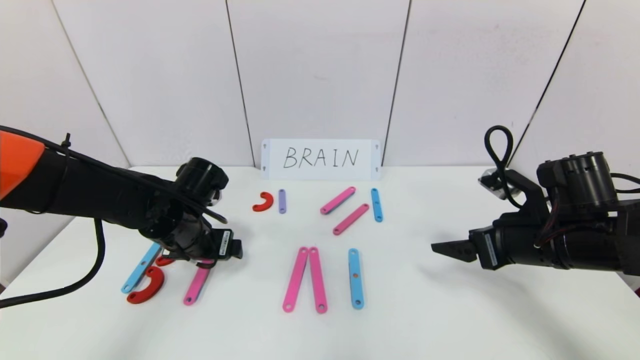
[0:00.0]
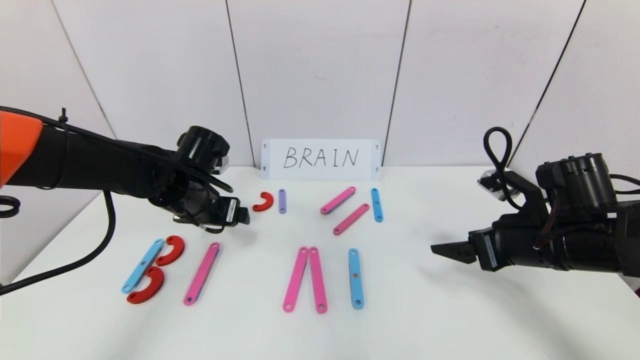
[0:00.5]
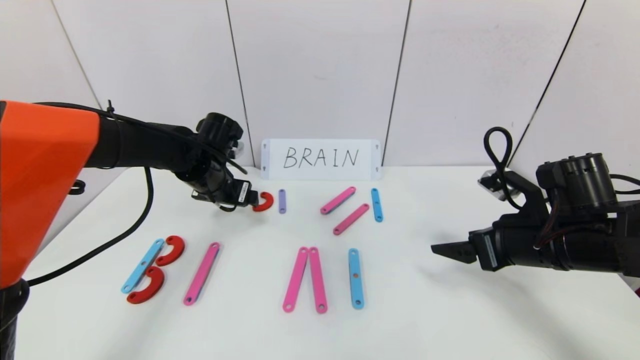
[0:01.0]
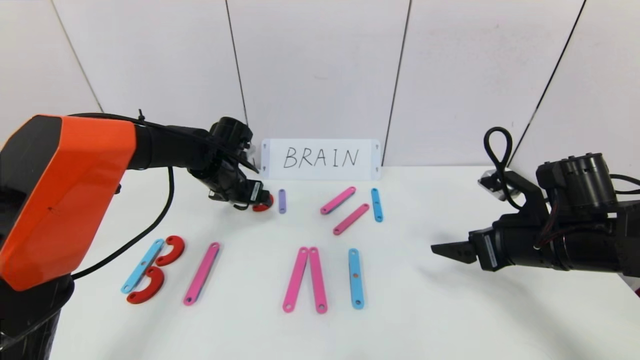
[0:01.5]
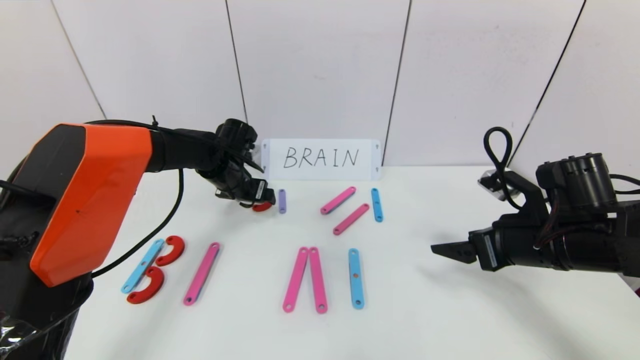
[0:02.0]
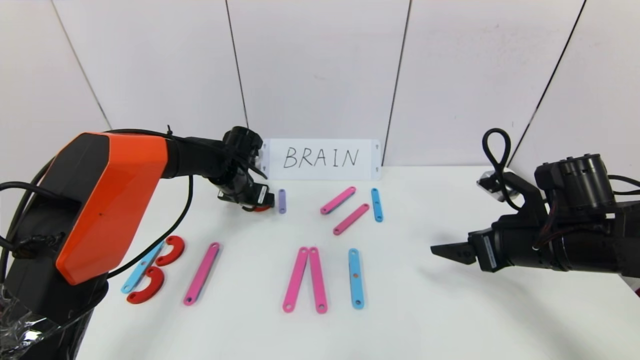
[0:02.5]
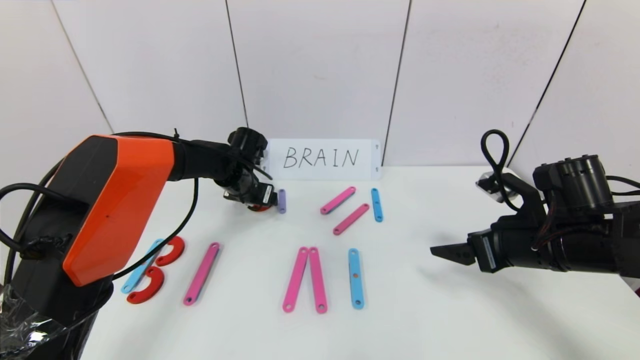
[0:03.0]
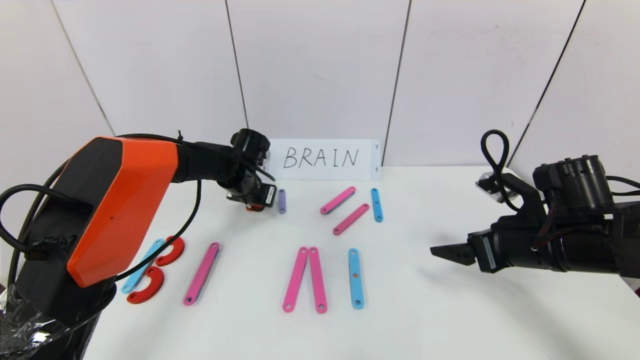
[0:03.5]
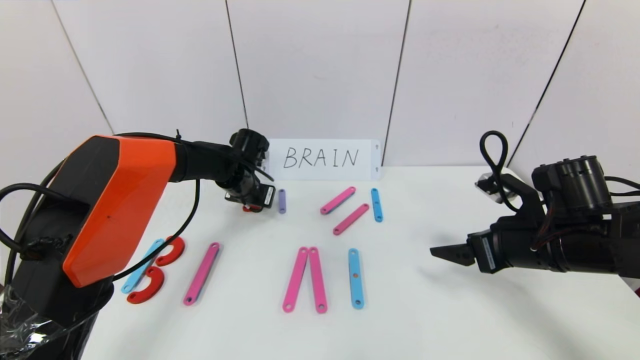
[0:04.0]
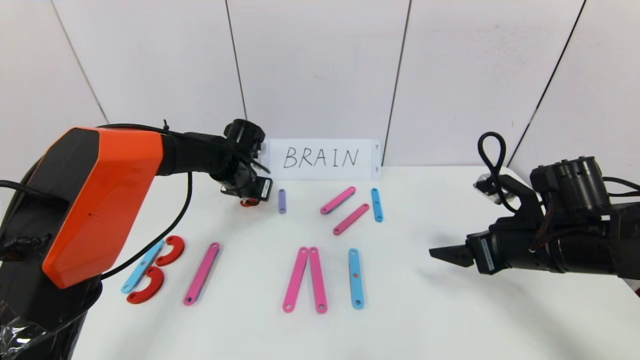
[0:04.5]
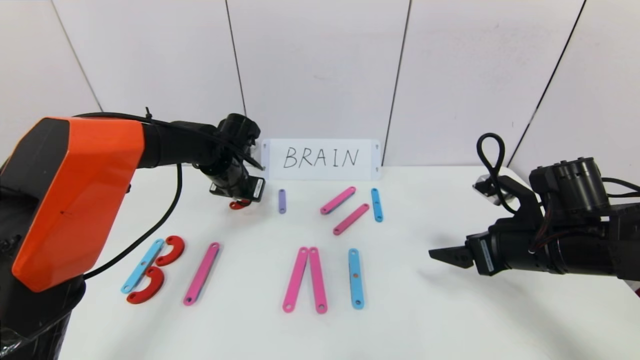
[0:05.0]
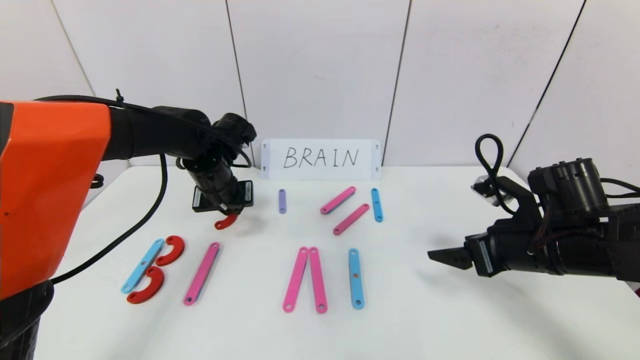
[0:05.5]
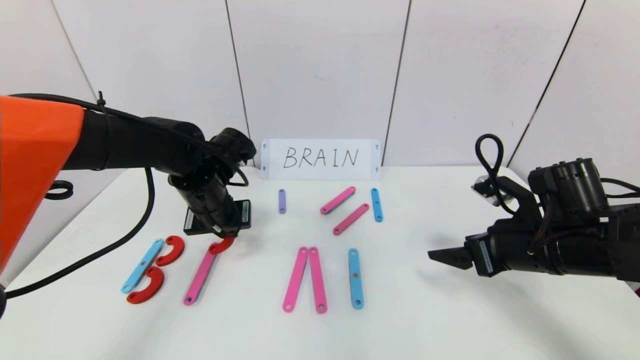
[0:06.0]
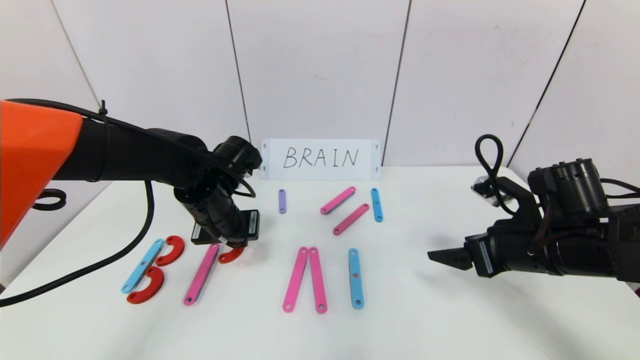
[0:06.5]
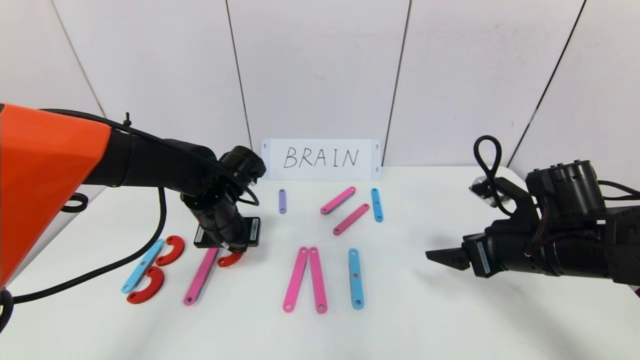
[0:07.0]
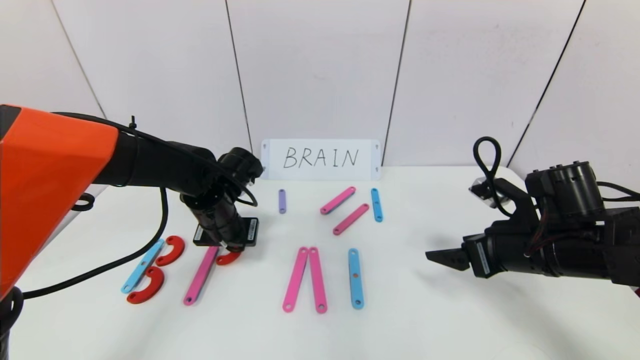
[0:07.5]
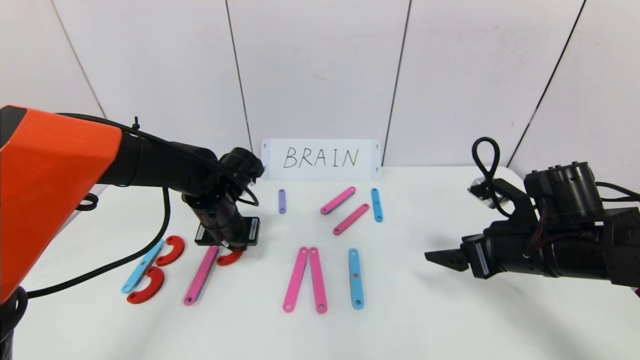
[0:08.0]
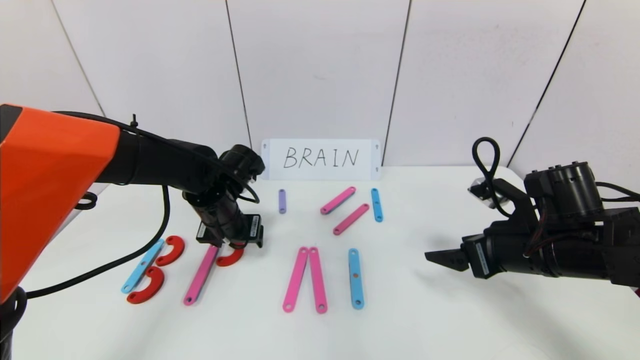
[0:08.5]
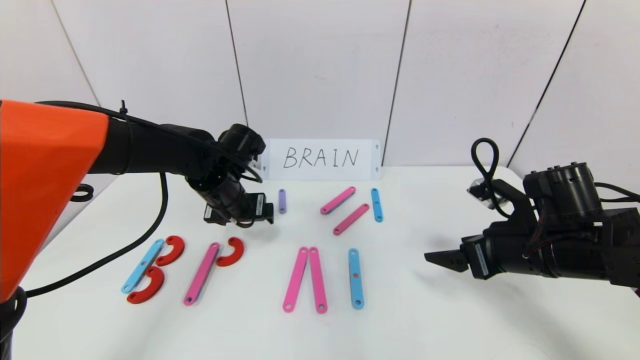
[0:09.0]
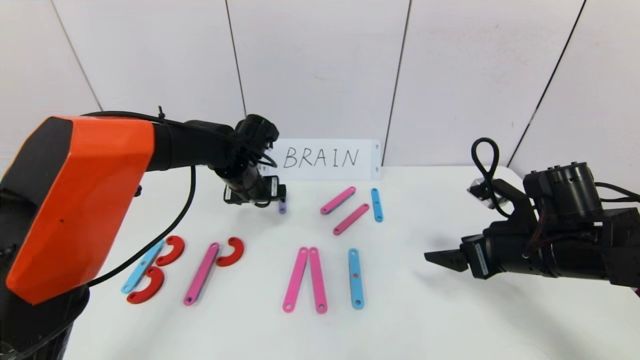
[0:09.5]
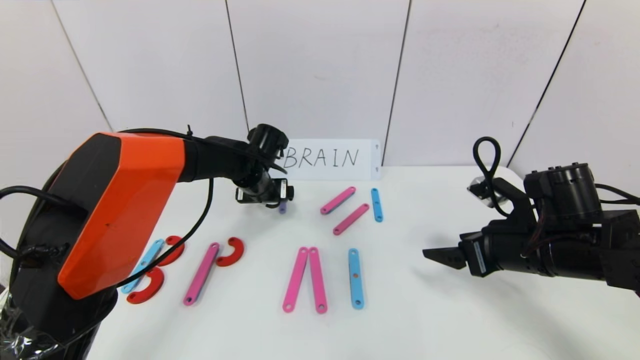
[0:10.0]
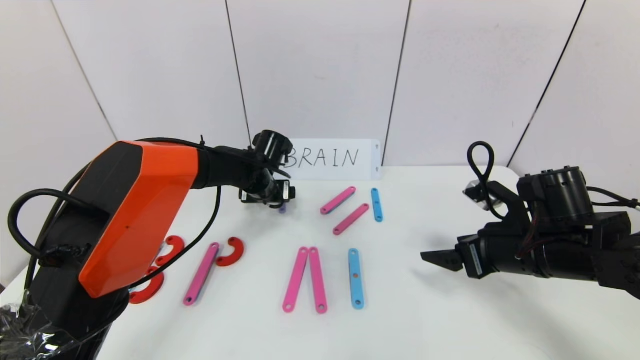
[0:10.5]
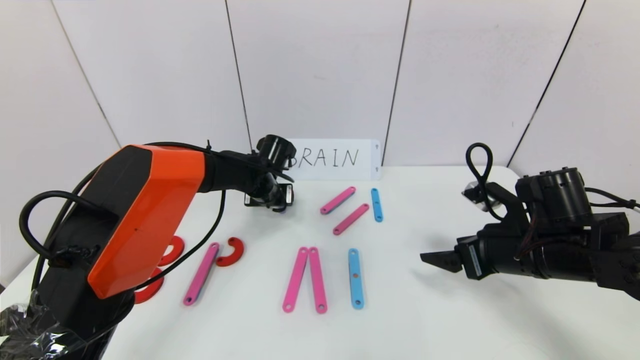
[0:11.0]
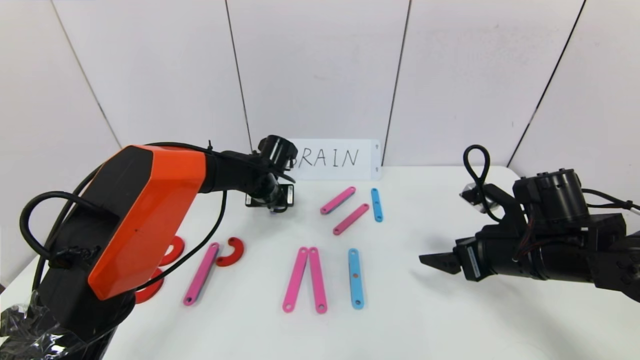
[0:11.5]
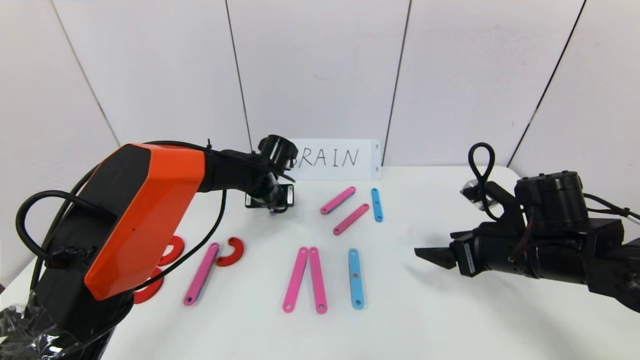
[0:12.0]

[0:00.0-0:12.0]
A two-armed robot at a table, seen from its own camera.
Task of the whole recording: rearrange the word baai as brain.
0:00.0 to 0:02.0: The left gripper is displaced forward by approximately 15 cm.
0:02.0 to 0:04.0: The left gripper closes up.
0:04.0 to 0:06.0: The left gripper shifts some 10 cm backward.
0:06.0 to 0:08.0: The grippers stay close to where they were, moving slightly.
0:08.0 to 0:10.0: The left gripper heads forward, covering about 10 cm, and opens up.
0:10.0 to 0:12.0: The left gripper closes its fingers.

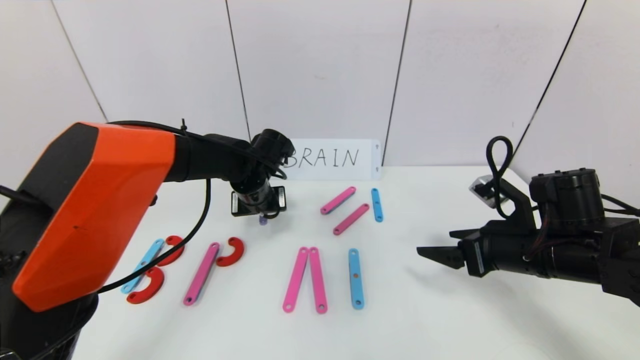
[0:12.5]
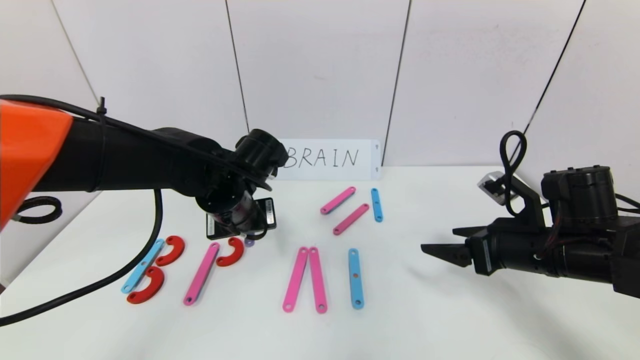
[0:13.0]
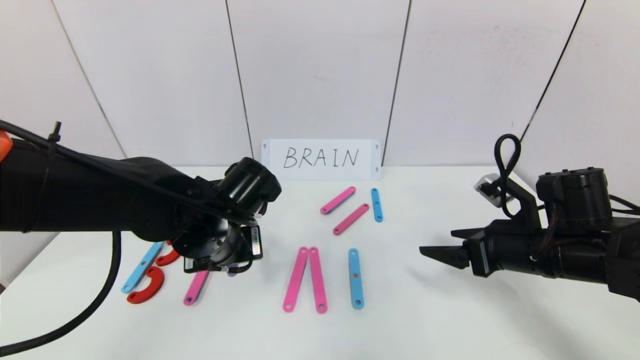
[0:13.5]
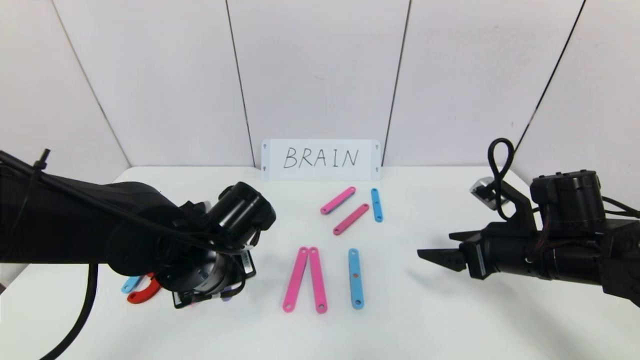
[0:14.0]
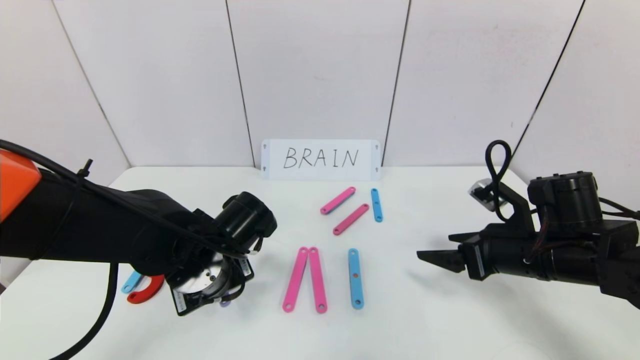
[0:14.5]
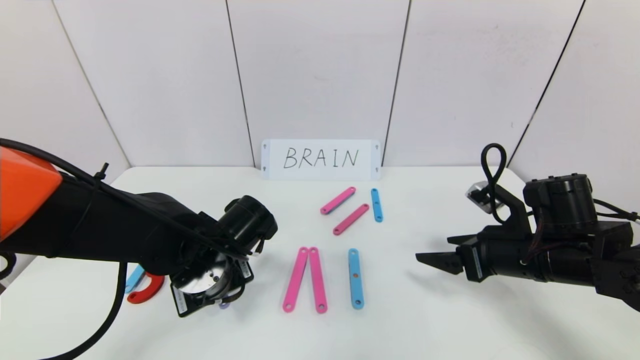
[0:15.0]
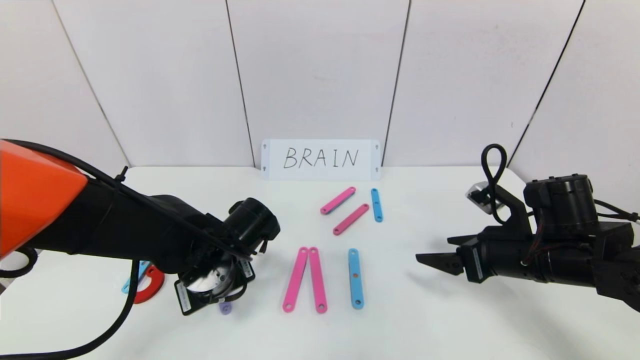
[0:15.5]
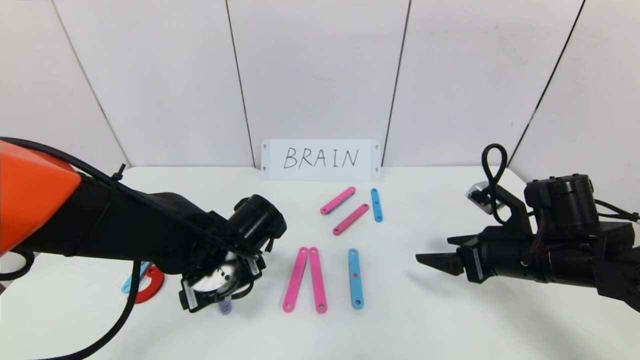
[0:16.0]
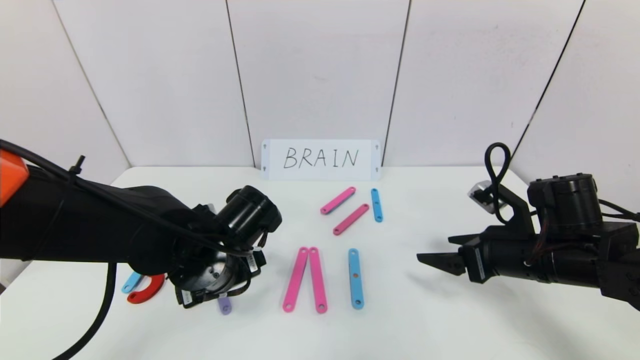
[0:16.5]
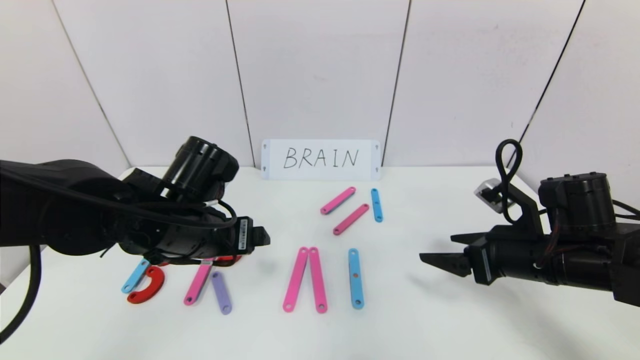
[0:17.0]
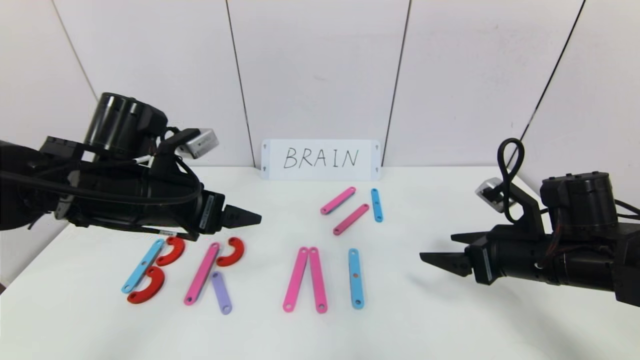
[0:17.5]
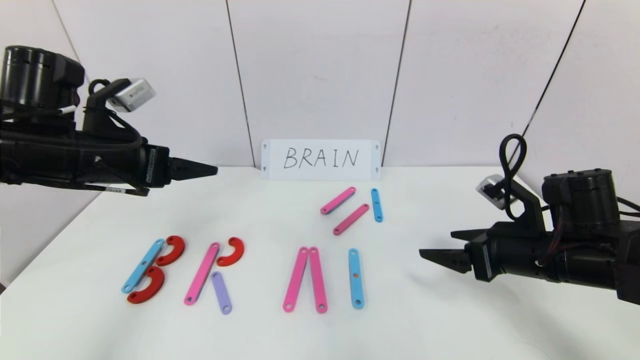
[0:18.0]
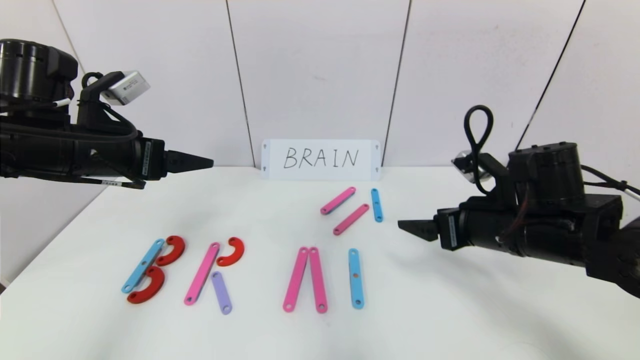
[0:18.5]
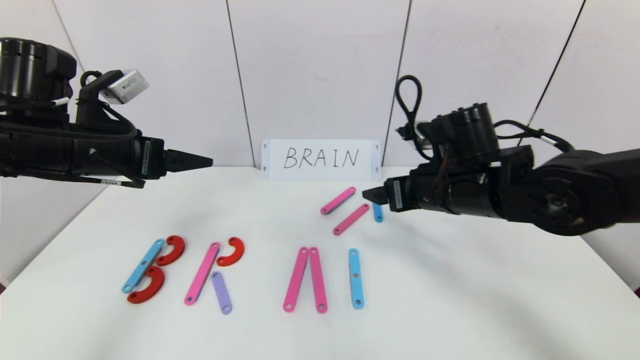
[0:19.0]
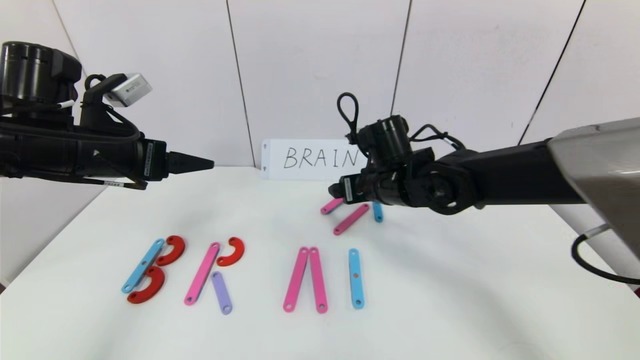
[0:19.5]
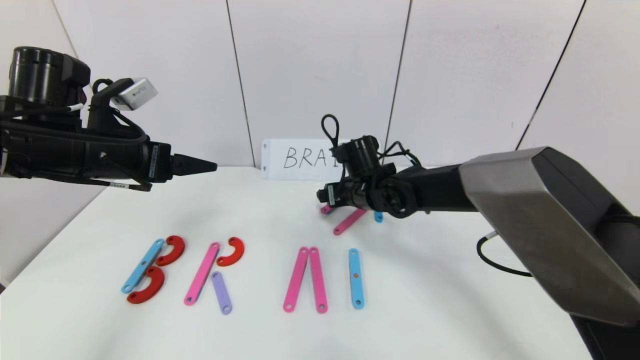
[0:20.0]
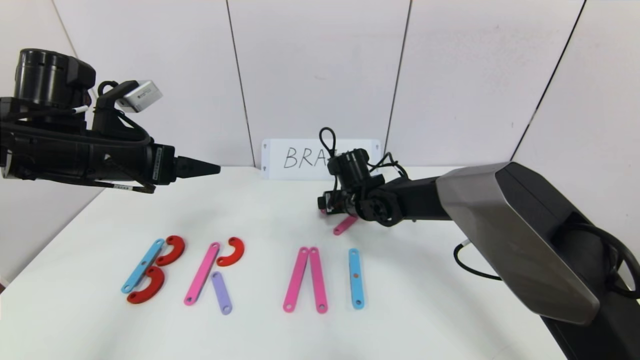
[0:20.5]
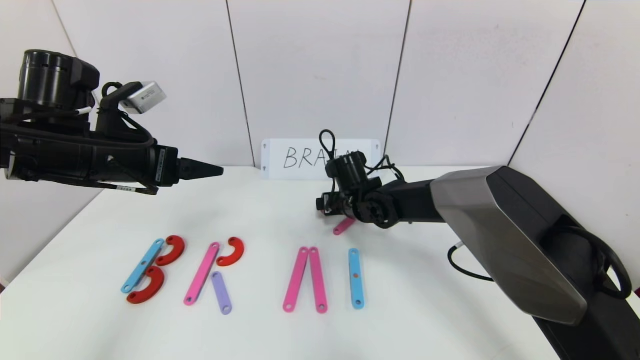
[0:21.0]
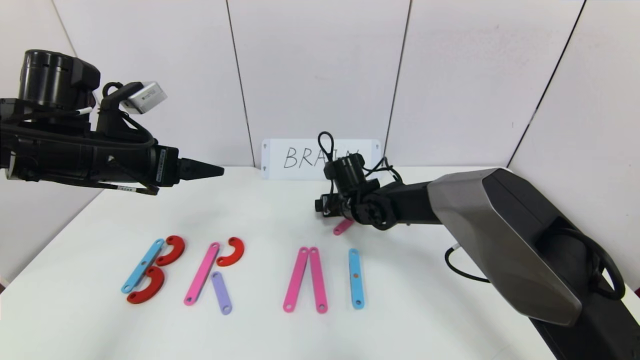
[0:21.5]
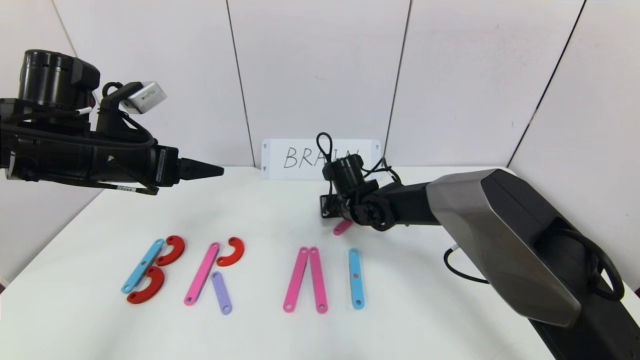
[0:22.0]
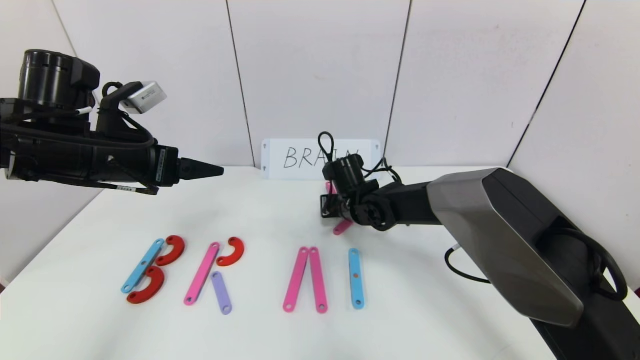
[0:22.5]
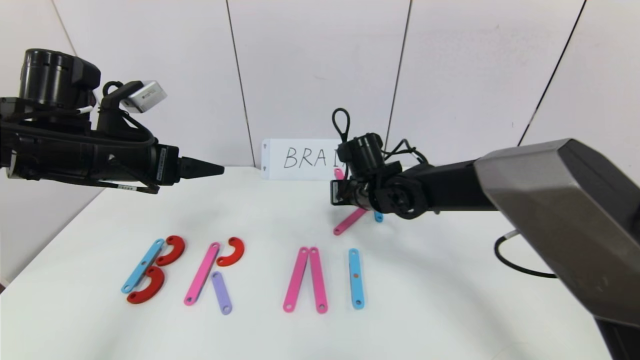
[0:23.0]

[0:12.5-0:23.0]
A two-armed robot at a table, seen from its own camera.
Task of the whole recording: rearrange the word baai as brain.
Step, 0:12.5 to 0:15.5: Place the character R between first character B and third character A.
0:12.5 to 0:14.5: The left gripper goes approximately 15 cm backward.
0:14.5 to 0:16.5: The left gripper opens up.
0:16.5 to 0:19.0: The left gripper shifts roughly 20 cm to the left and upward. The right gripper goes approximately 15 cm to the left, upward and forward.
0:19.0 to 0:21.0: The right gripper shifts some 20 cm forward, downward and to the left.
0:21.0 to 0:23.0: The right gripper shifts by roughly 5 cm, and closes.
